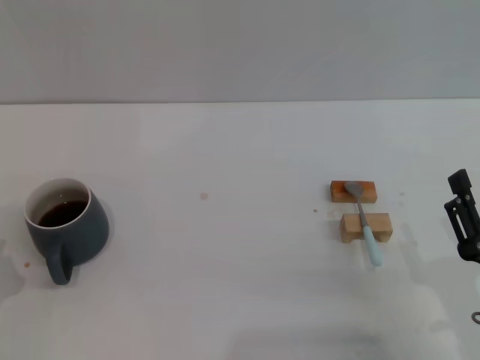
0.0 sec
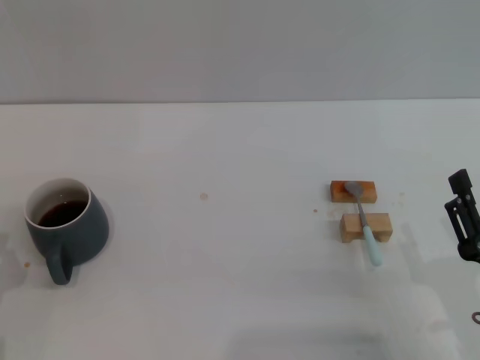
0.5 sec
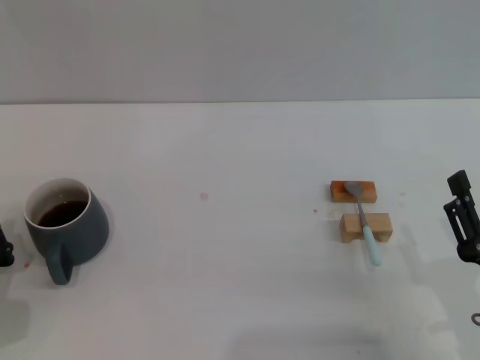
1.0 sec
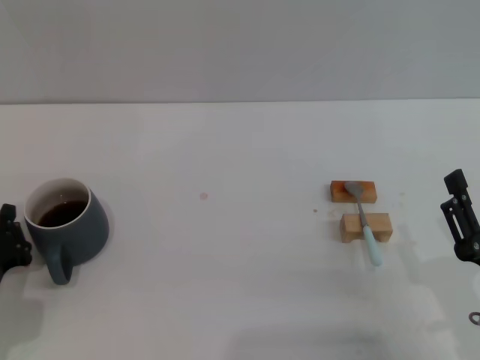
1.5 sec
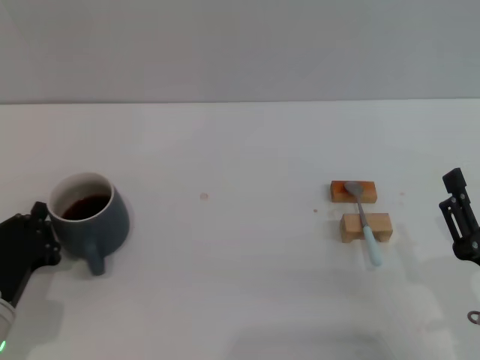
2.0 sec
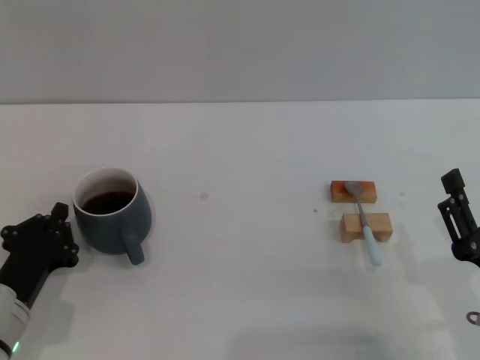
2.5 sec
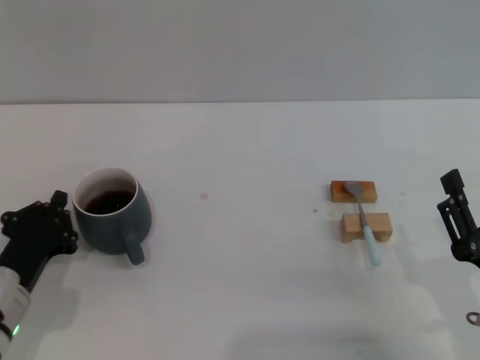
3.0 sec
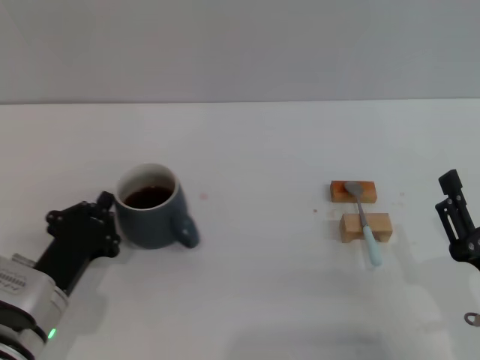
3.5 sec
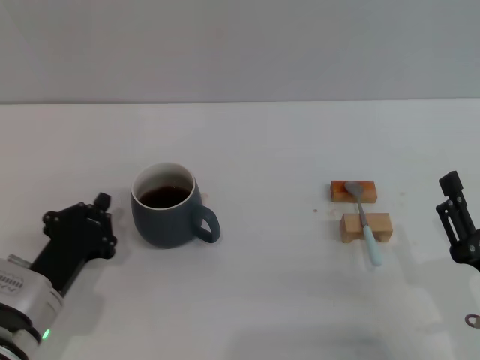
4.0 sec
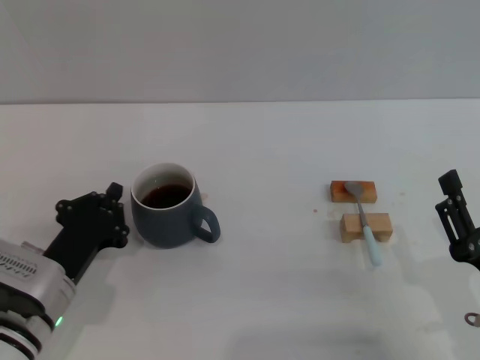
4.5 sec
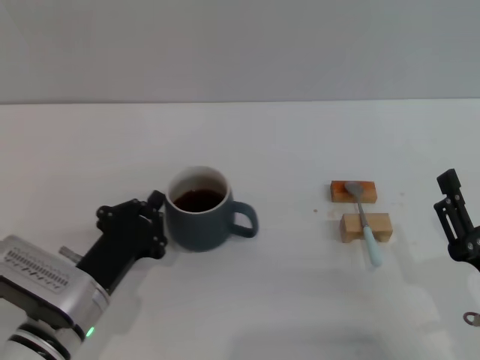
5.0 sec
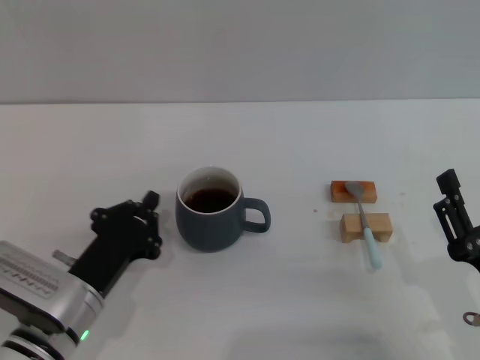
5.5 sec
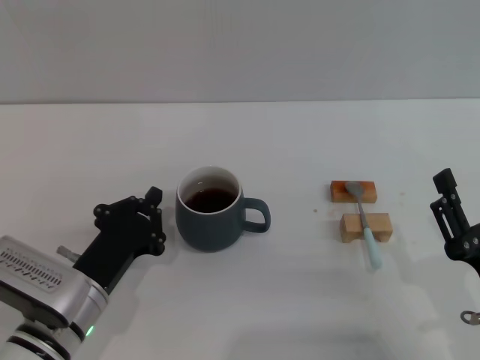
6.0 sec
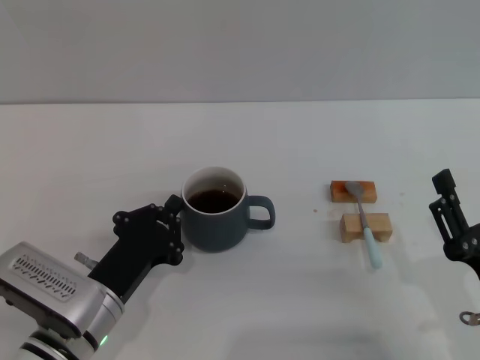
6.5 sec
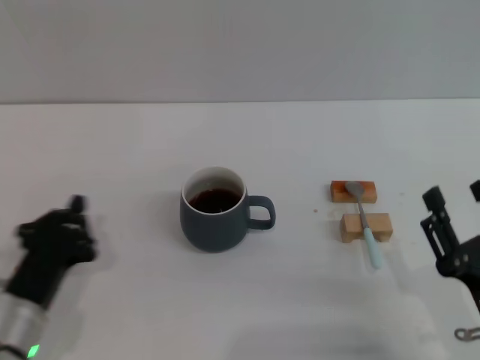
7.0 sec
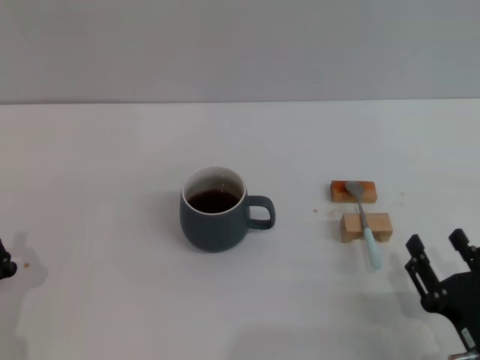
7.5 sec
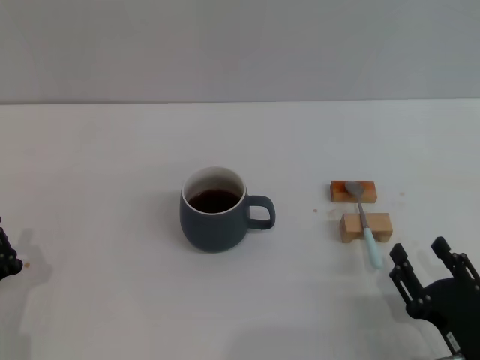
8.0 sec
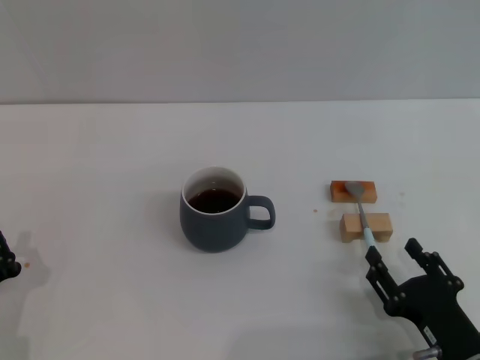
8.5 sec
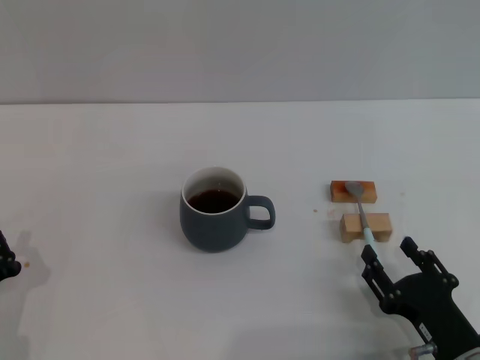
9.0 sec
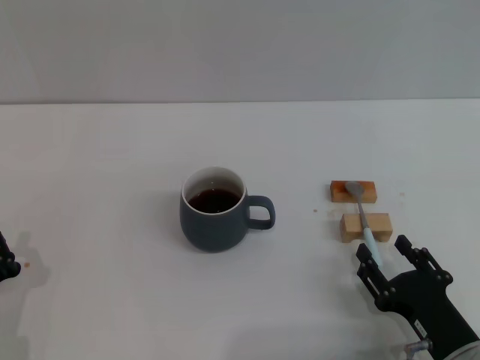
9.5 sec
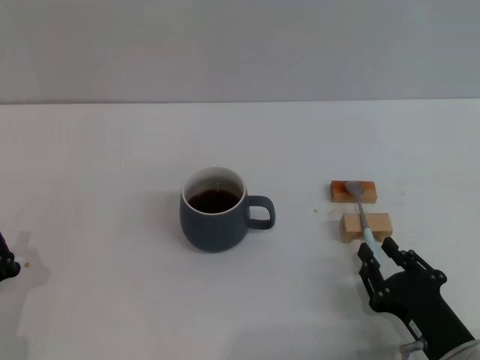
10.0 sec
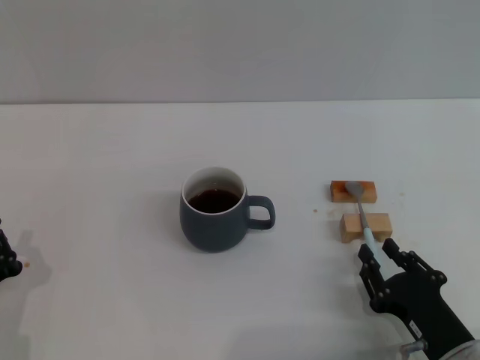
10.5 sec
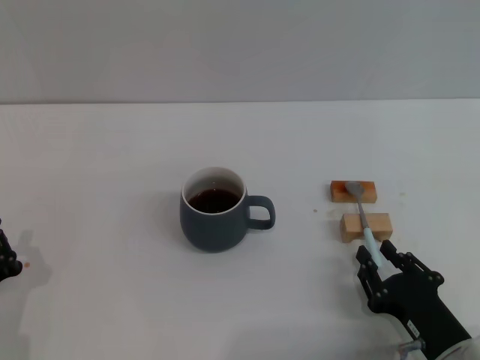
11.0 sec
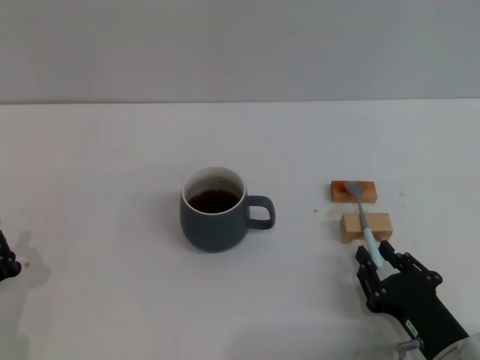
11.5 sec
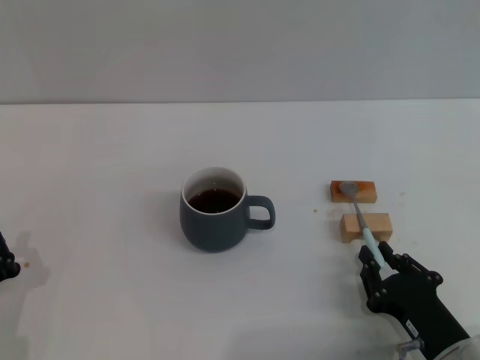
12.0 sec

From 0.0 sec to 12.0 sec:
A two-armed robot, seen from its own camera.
Task of the whole recording: Move the grey cup to the center, lift the blue spoon, stir it three times in the cup, and put the spoon into the cup.
Step, from 0.0 sec to 6.5 sec: Move the cup with coffee to the center of view with the left gripper.
From 0.0 sec to 2.0 sec: The left gripper goes some 5 cm forward.
From 2.0 sec to 4.0 sec: The grippers stay close to where they were, moving slightly.
From 4.0 sec to 6.0 sec: The grippers make only small movements.
From 6.0 sec to 8.0 sec: The left gripper moves to the left and backward, roughly 10 cm.
From 8.0 sec to 10.0 sec: The grippers stay close to where they were, moving slightly.
From 10.0 sec to 12.0 sec: The right gripper closes its fingers.

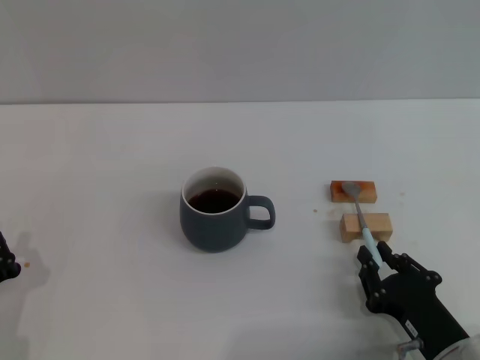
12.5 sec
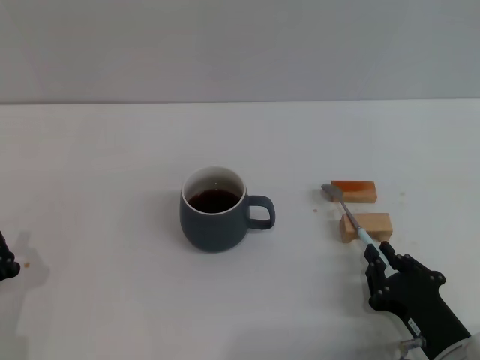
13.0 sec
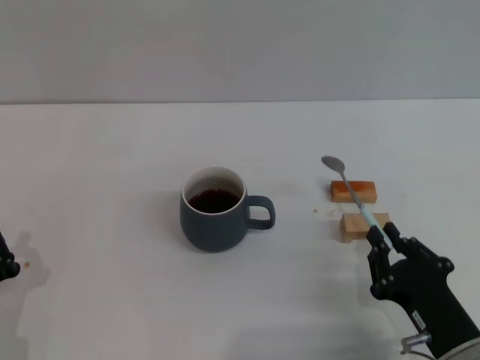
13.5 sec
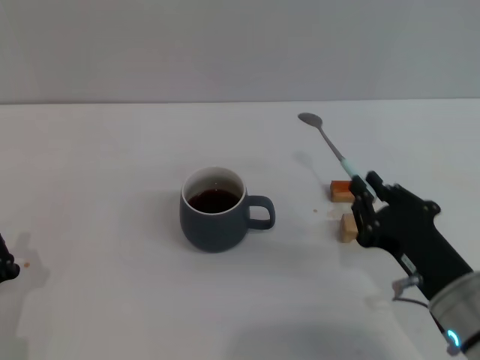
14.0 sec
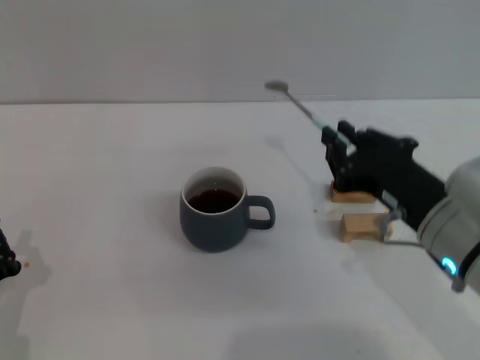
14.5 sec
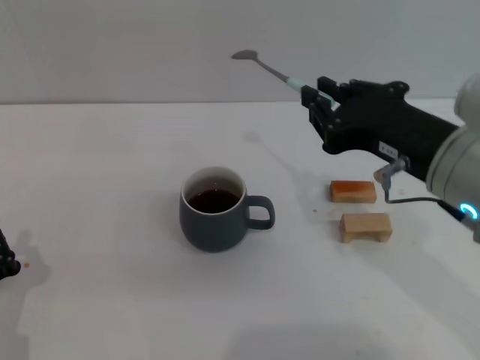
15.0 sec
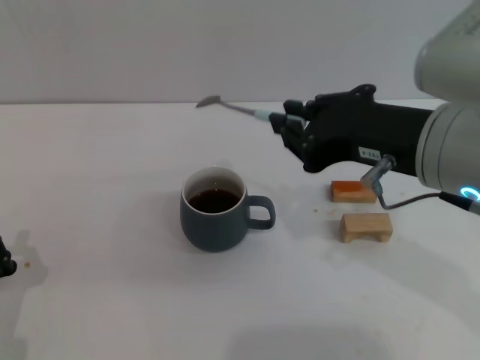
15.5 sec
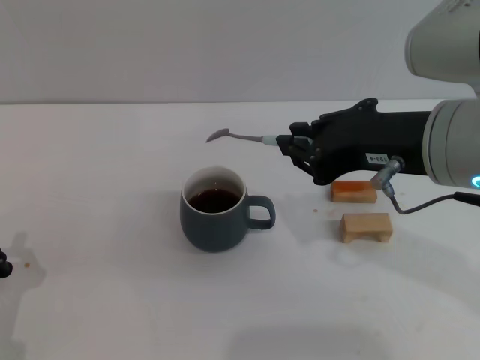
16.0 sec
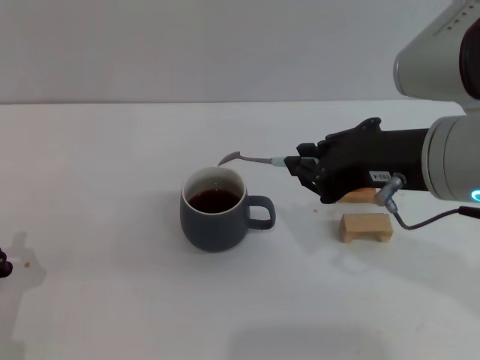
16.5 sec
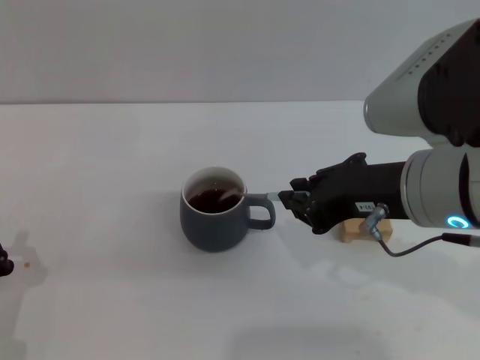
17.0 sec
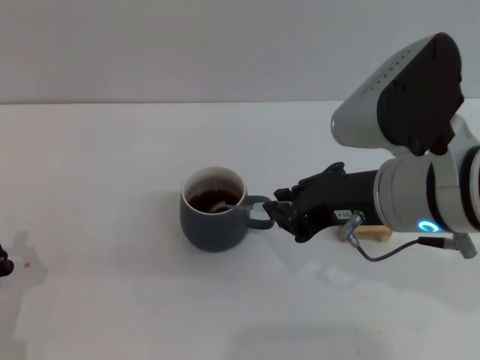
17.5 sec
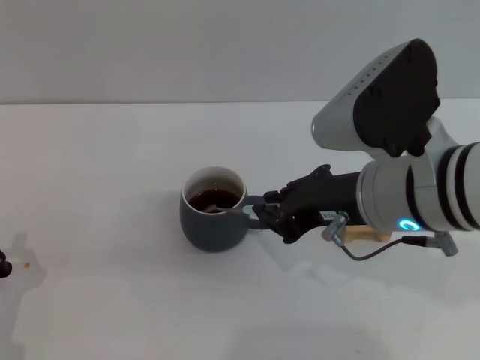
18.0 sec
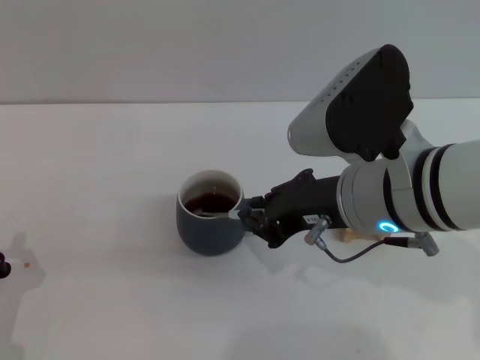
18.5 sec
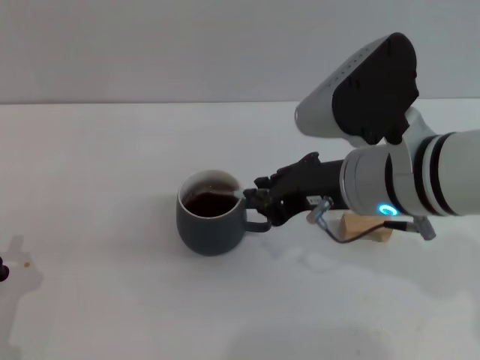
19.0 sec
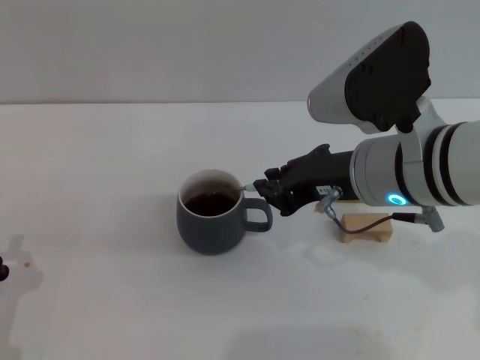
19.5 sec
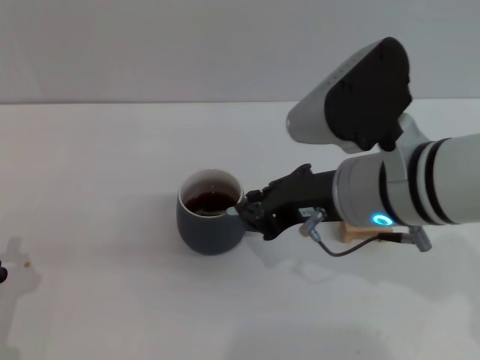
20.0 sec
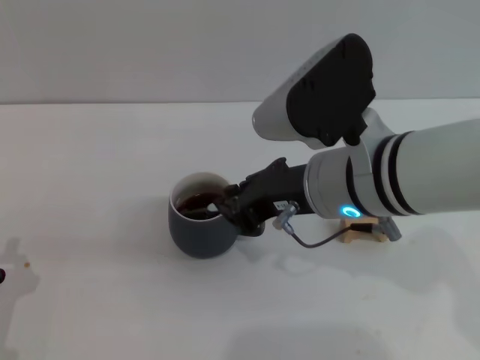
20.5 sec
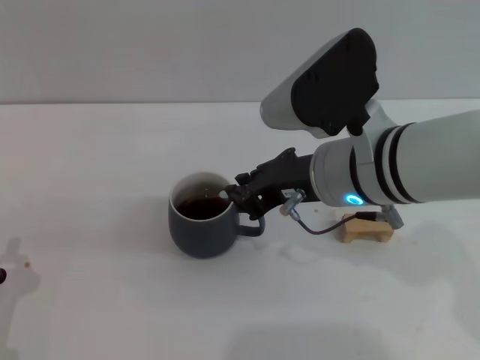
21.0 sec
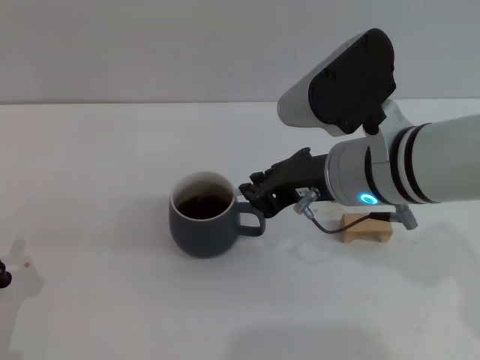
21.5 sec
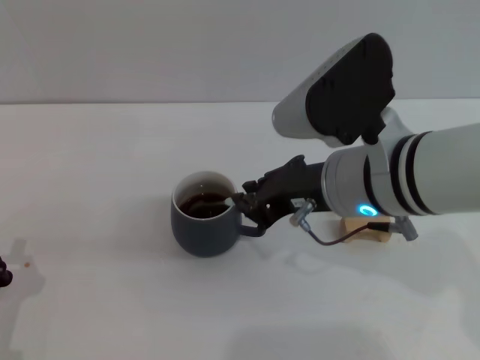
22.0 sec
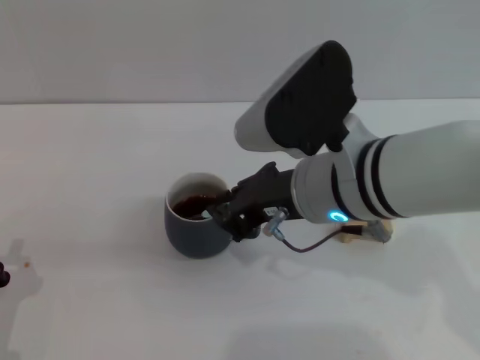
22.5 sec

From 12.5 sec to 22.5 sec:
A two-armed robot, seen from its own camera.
Task of the whole recording: Move the grey cup to the center, lift the blue spoon, stir it three times in the cup, and put the spoon into the cup.
From 12.5 sec to 14.5 sec: The right gripper heads upward and forward, covering some 15 cm.
From 14.5 sec to 16.5 sec: The right gripper goes about 10 cm upward.
From 16.5 sec to 18.5 sec: The right gripper shifts approximately 5 cm downward.
From 18.5 sec to 22.5 sec: The grippers make only small movements.

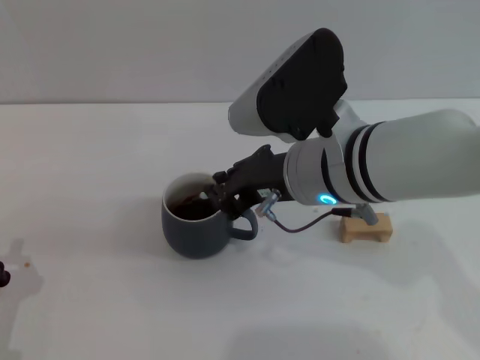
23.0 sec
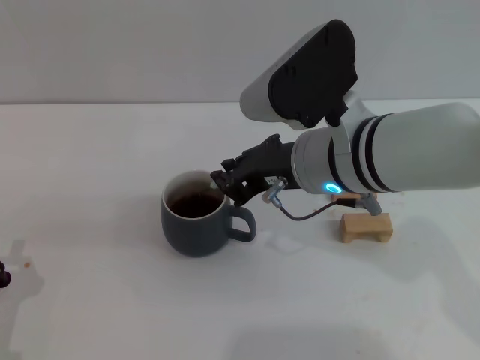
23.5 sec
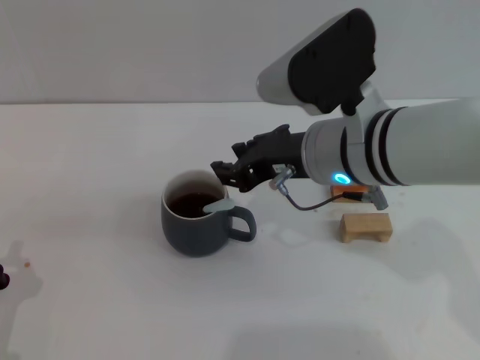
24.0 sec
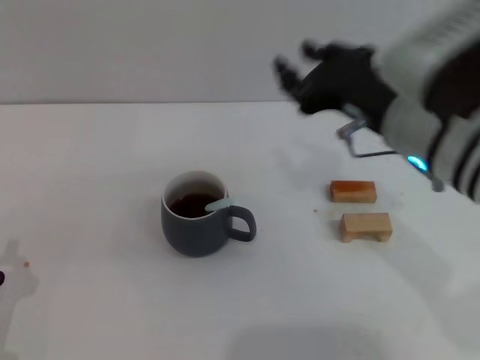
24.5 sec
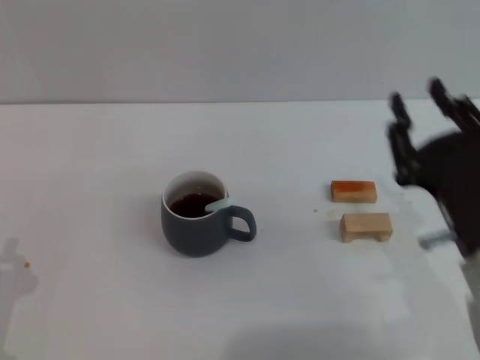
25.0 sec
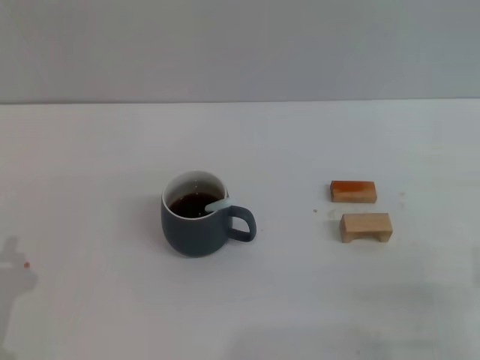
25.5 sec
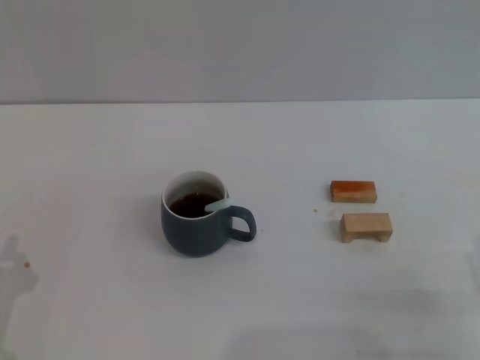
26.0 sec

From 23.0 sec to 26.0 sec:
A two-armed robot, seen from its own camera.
Task of the whole recording: Move the grey cup to the center, lift the blue spoon, stir it three times in the cup, and put the spoon into the cup.
From 23.0 sec to 24.5 sec: The right gripper shifts some 5 cm to the right, and opens its fingers.
From 24.5 sec to 26.0 sec: The right gripper is displaced downward, backward and to the right by some 25 cm, and opens.
